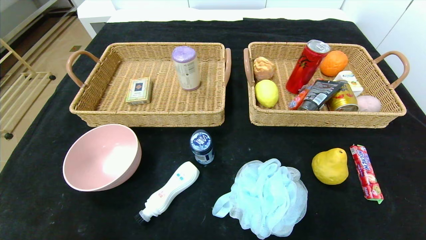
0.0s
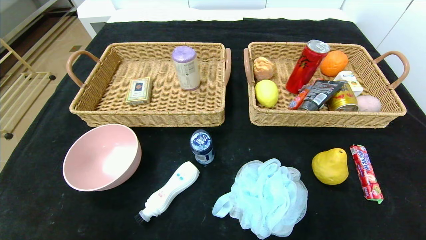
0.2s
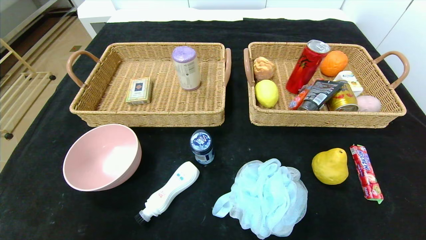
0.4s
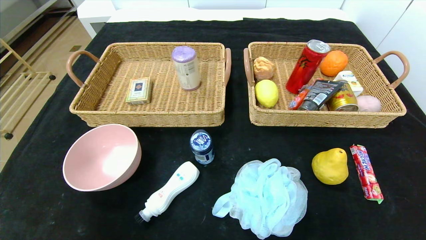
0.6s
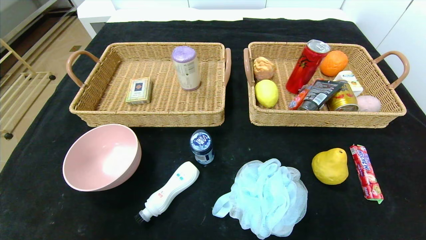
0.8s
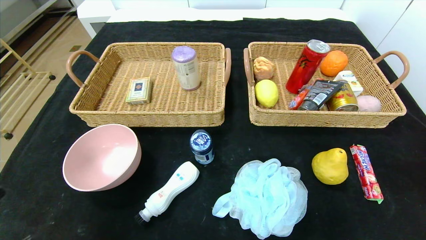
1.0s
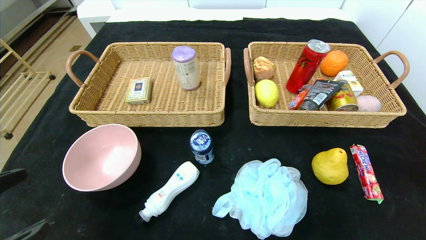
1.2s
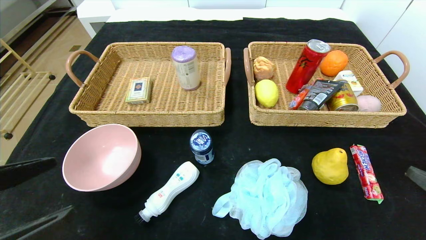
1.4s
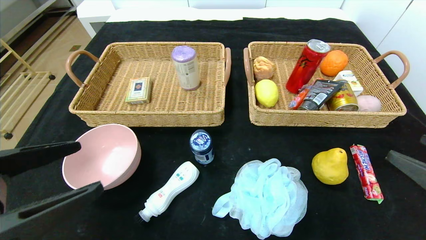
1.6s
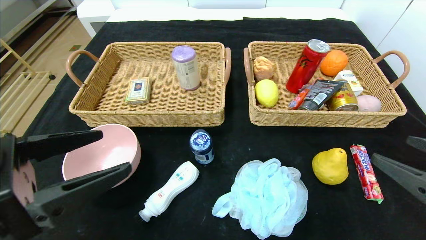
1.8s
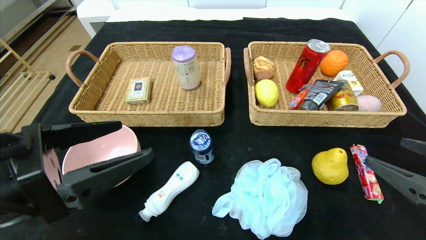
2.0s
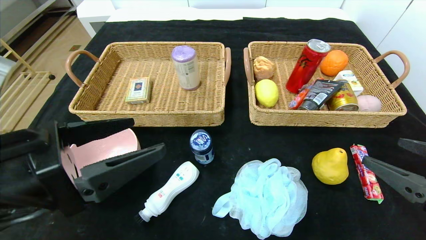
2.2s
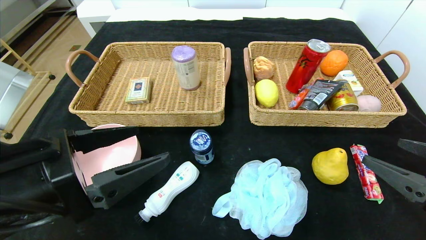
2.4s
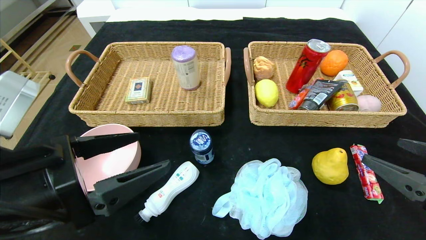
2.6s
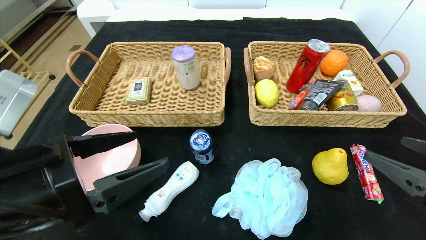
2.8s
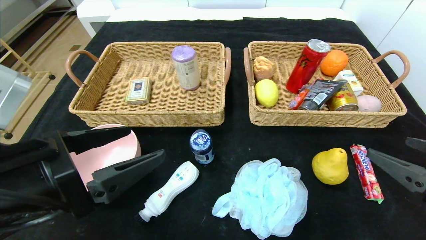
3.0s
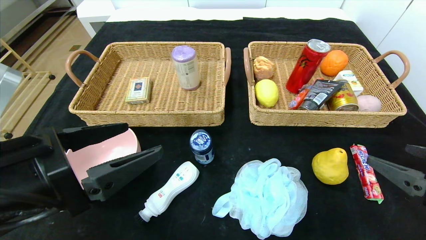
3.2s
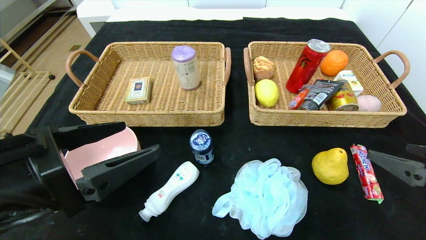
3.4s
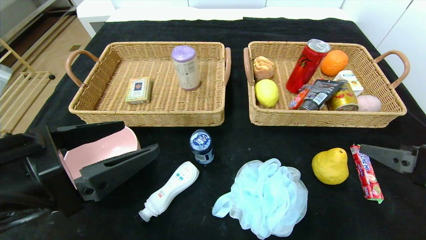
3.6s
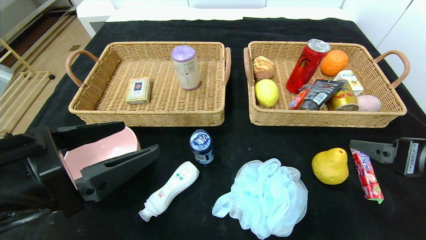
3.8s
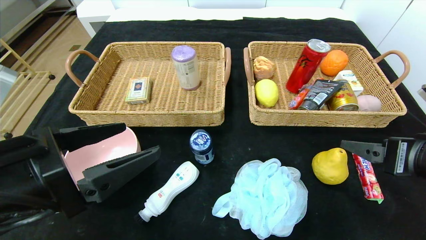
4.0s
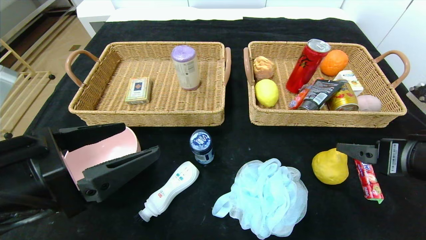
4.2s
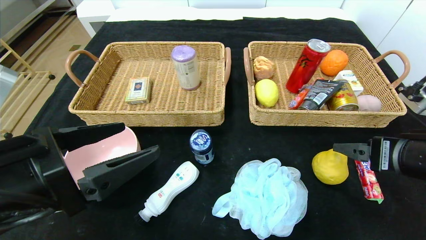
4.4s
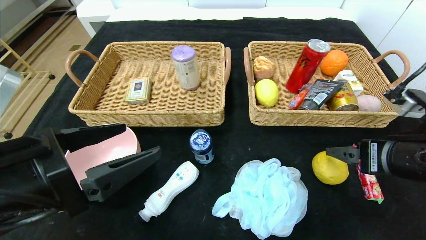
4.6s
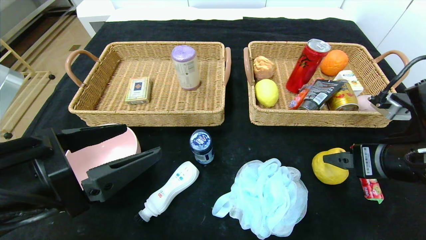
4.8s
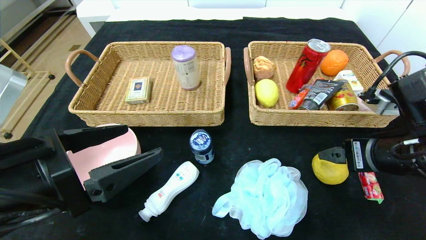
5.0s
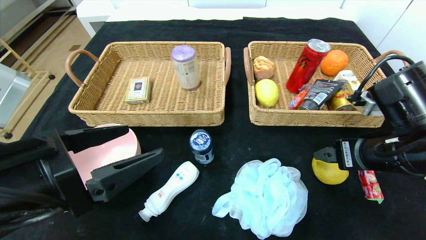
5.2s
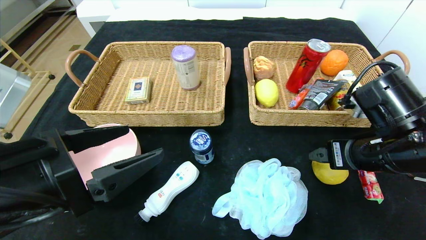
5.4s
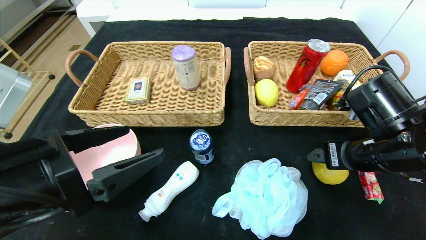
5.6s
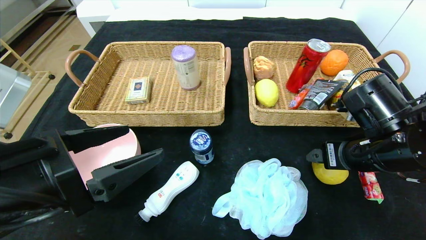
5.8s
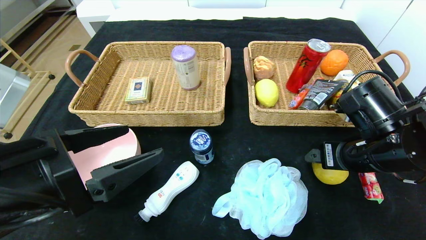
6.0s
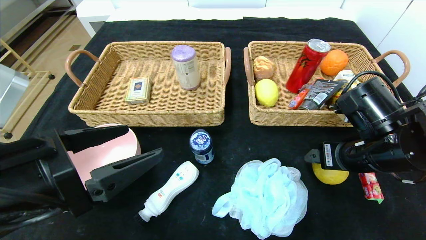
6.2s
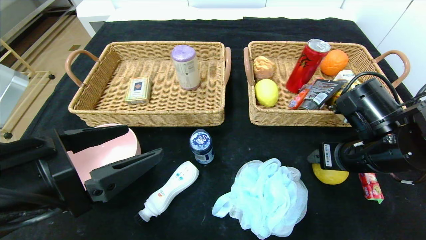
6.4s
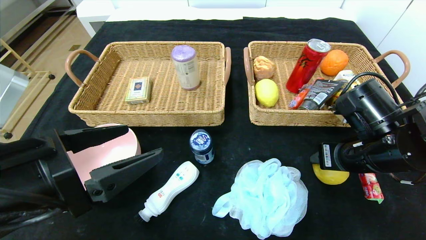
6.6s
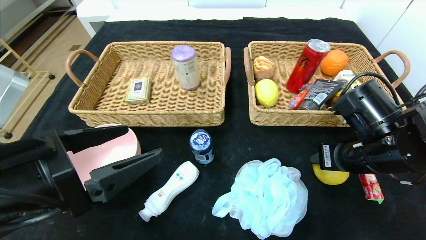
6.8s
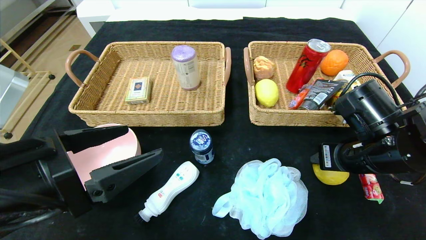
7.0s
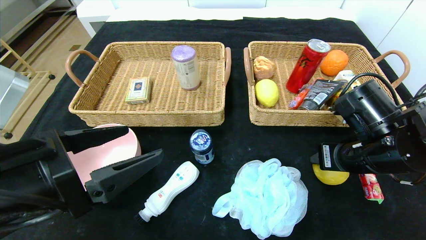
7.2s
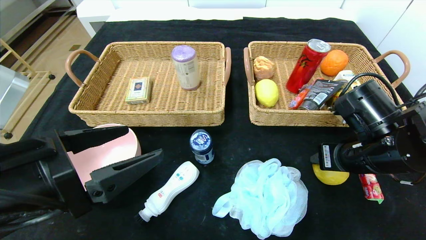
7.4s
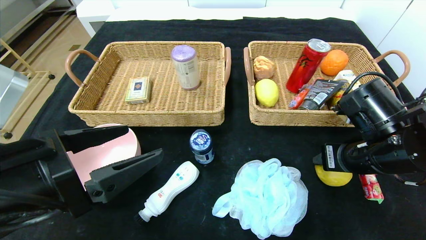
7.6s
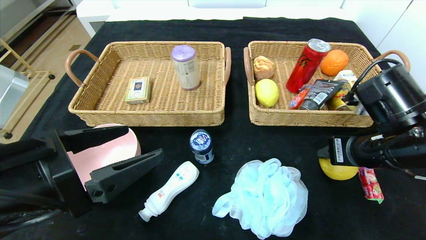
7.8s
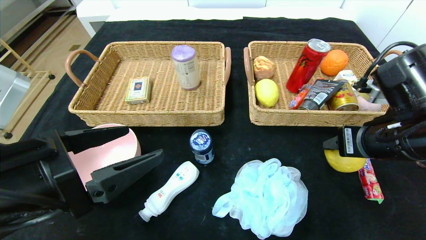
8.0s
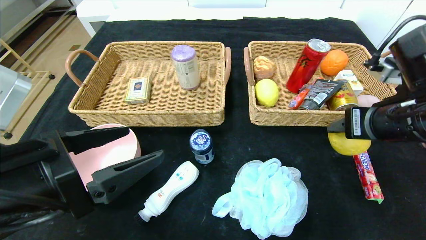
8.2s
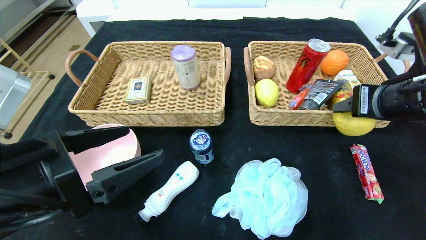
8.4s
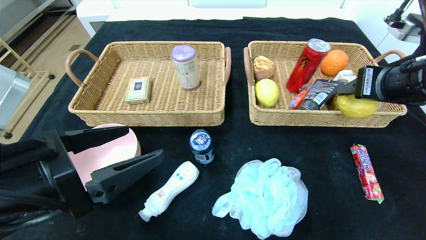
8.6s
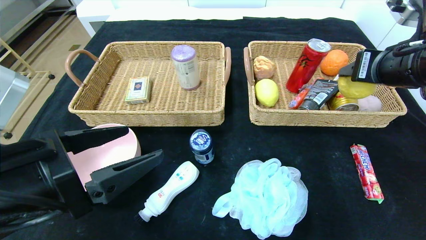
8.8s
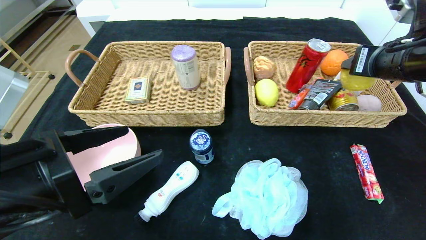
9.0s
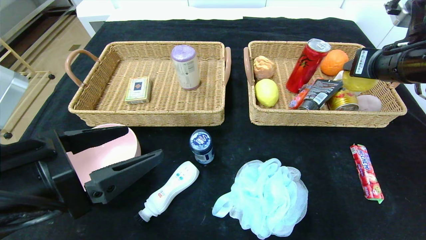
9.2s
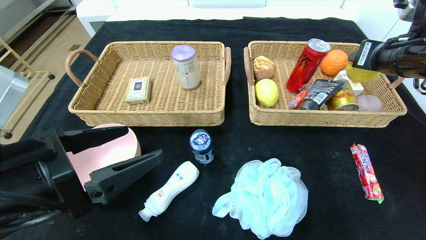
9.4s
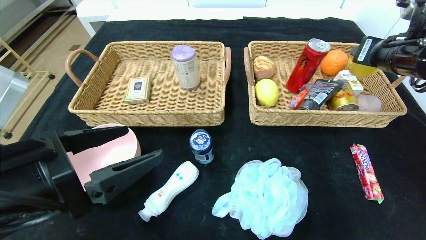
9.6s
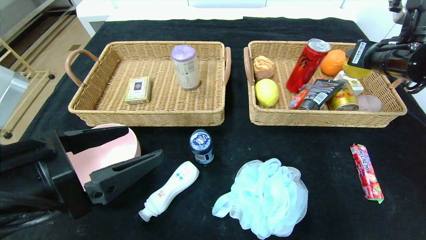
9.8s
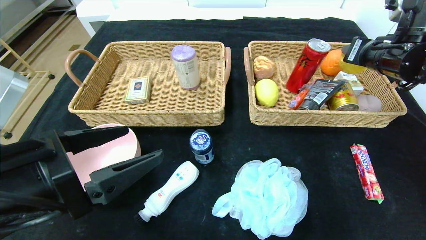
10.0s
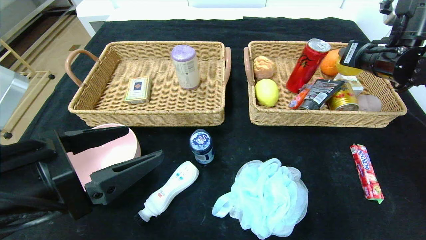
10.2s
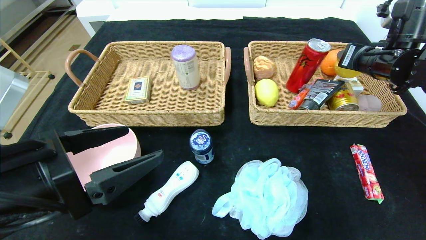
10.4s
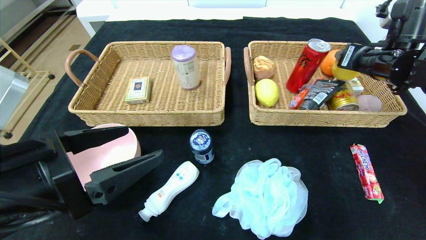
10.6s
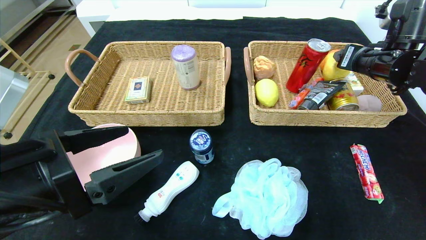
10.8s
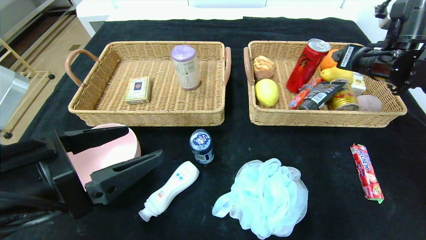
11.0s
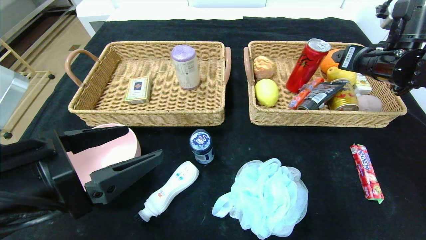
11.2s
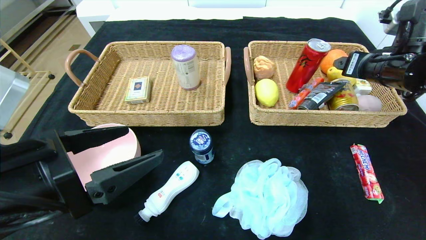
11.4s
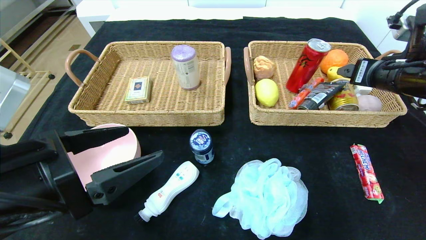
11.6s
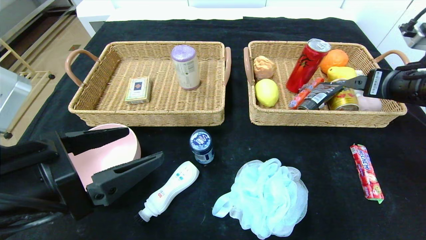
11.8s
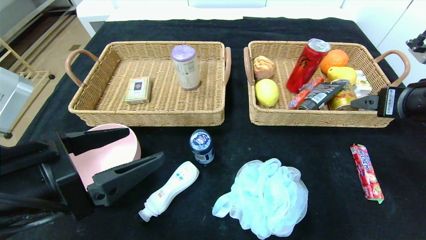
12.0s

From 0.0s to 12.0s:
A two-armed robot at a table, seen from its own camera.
Step, from 0.0s to 11.2s: Grasp the pear and put it in the right basket.
From 0.0s to 1.6s: The grippers both shift forward and upward by roughly 15 cm.
From 1.6s to 3.0s: The left gripper shifts by about 5 cm.
From 3.0s to 4.4s: The right gripper is displaced forward by approximately 5 cm.
From 4.4s to 6.0s: The right gripper goes about 5 cm forward.
From 6.0s to 7.6s: The right gripper closes up.
From 7.6s to 9.0s: The right gripper heads upward, covering roughly 10 cm.
From 9.0s to 10.4s: The right gripper travels forward by roughly 5 cm.
From 10.4s to 12.0s: The right gripper moves backward, approximately 15 cm, and opens its fingers.

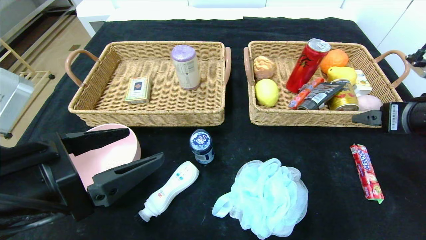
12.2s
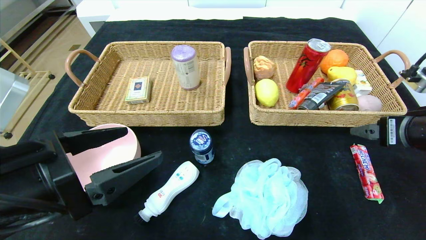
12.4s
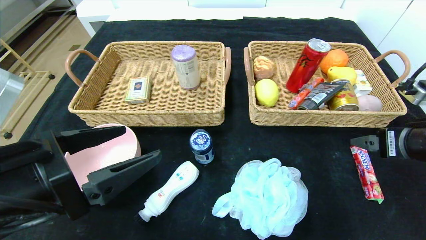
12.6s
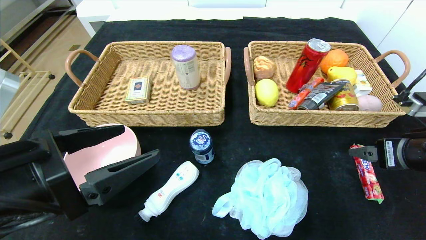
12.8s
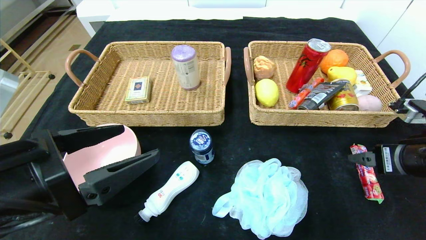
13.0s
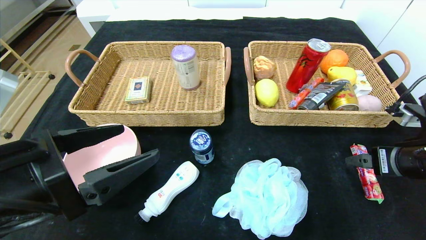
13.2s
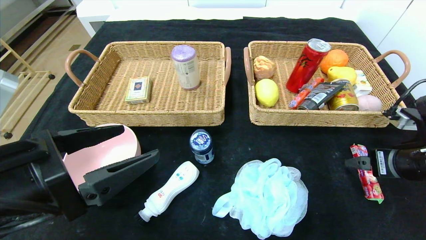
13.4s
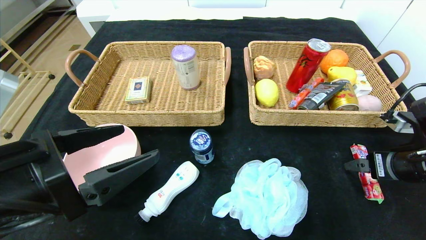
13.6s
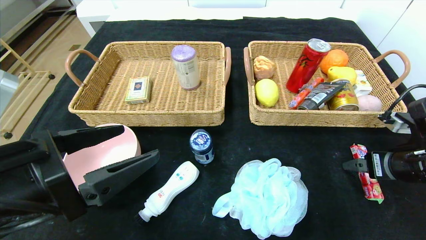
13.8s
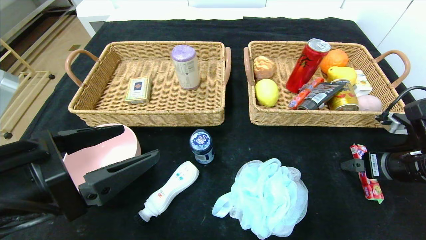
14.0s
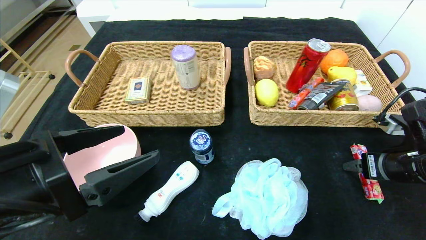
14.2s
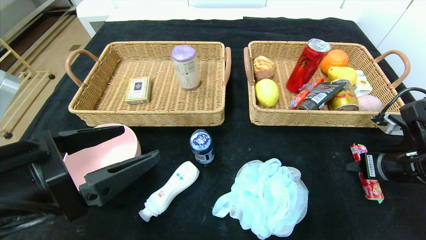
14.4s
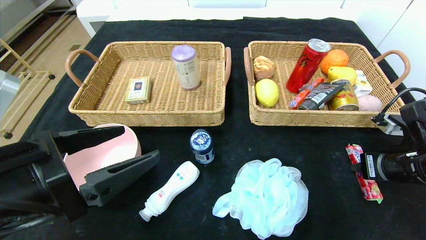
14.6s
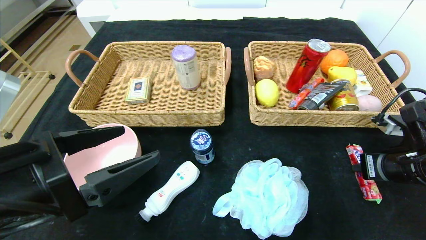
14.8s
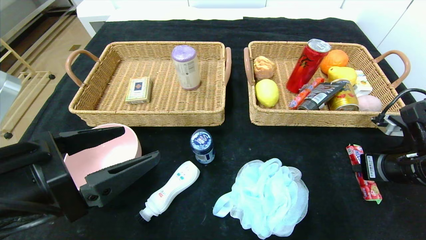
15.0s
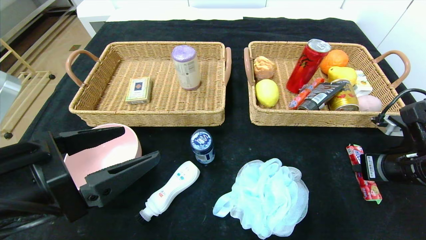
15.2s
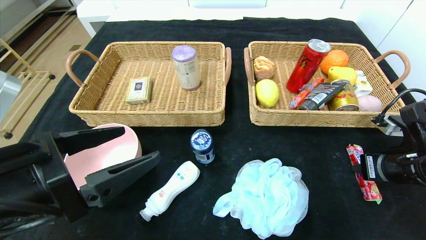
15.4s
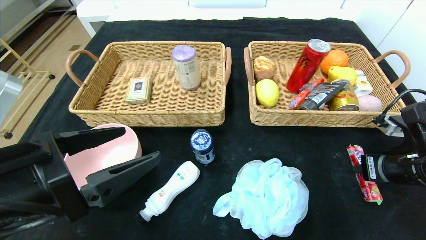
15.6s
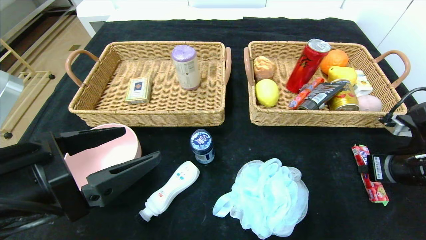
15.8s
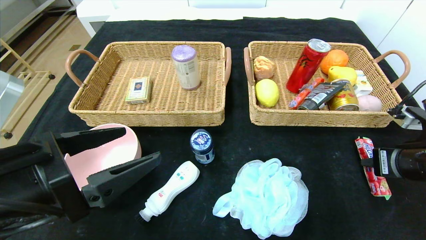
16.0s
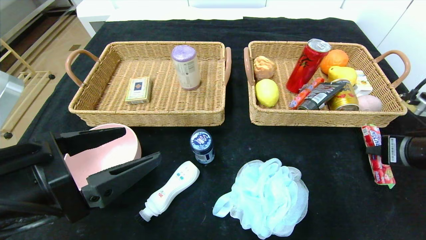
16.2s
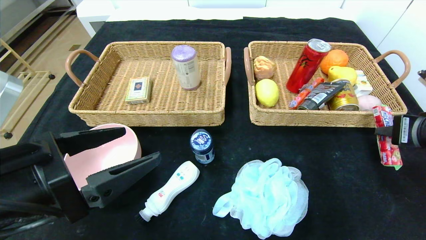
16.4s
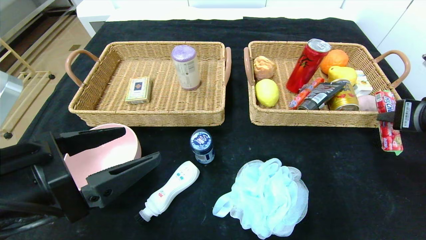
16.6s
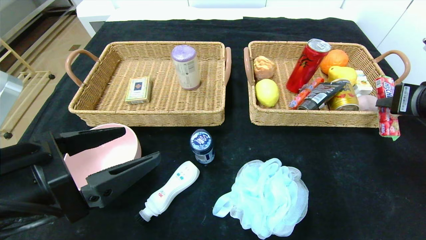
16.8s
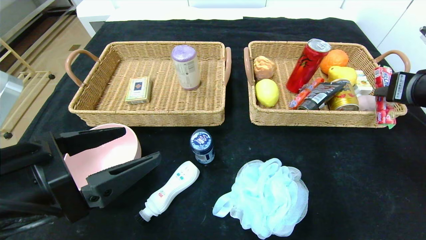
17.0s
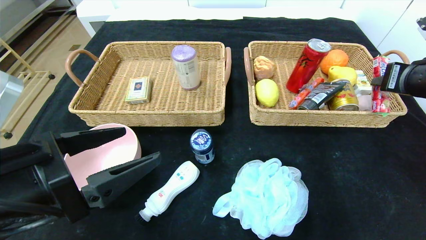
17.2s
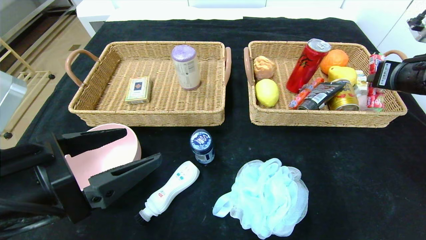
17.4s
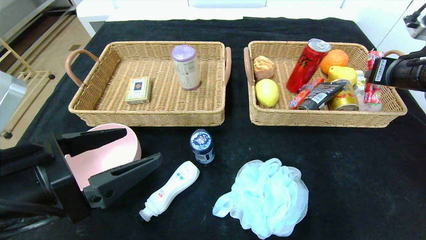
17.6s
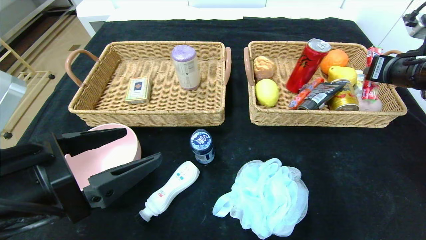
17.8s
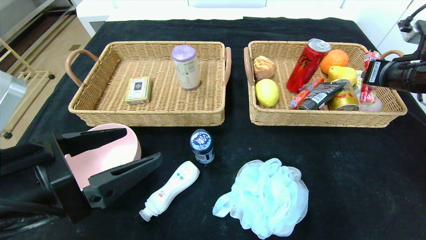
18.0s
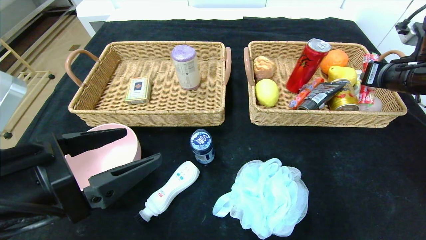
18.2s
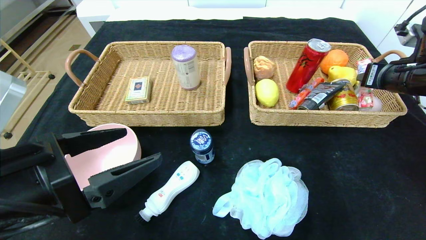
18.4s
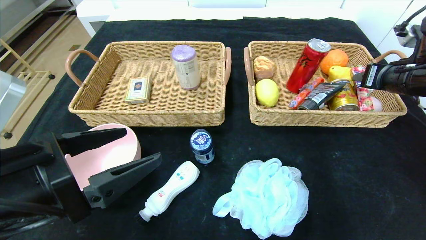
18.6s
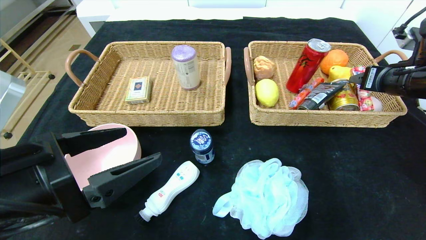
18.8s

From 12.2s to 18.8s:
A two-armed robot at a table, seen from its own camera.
From 12.2s to 13.8s: The right gripper heads downward, covering about 10 cm.
From 13.8s to 15.4s: The right gripper closes its fingers.
From 15.4s to 17.2s: The right gripper travels upward by roughly 15 cm.
From 17.2s to 18.8s: The right gripper opens up.
